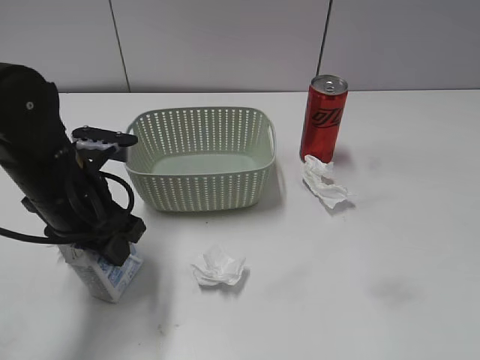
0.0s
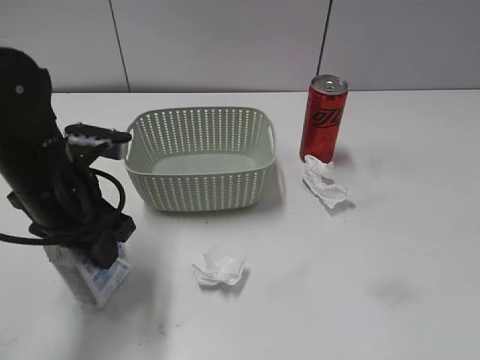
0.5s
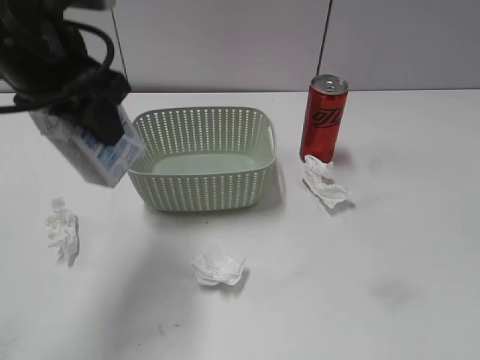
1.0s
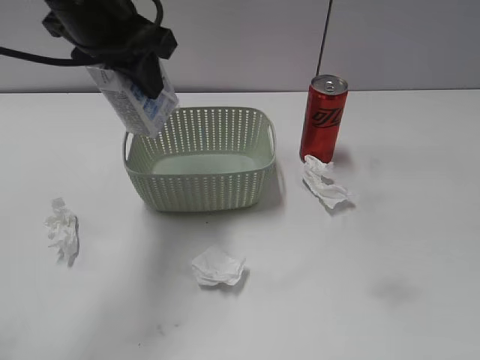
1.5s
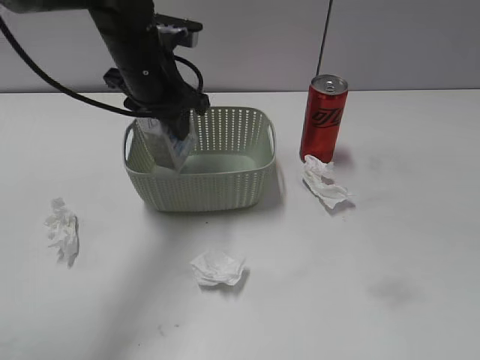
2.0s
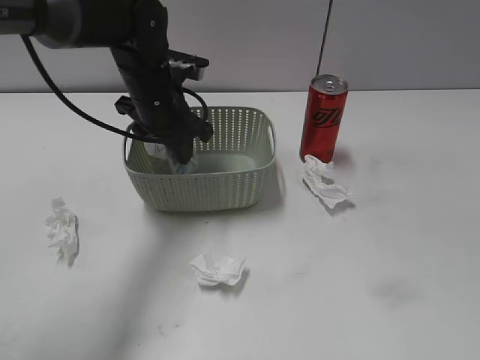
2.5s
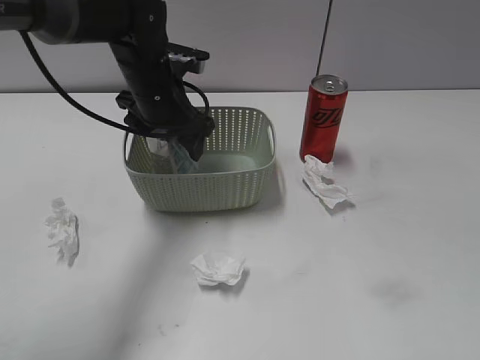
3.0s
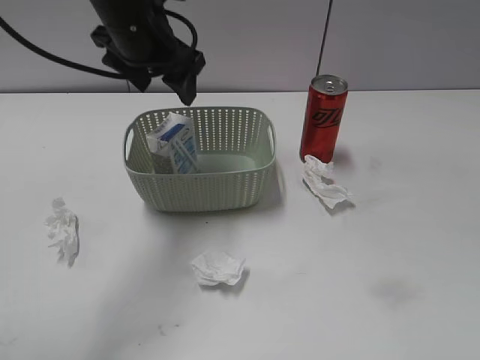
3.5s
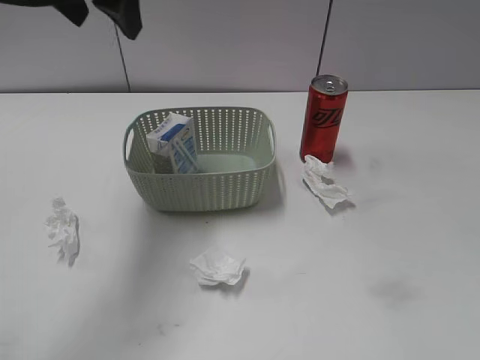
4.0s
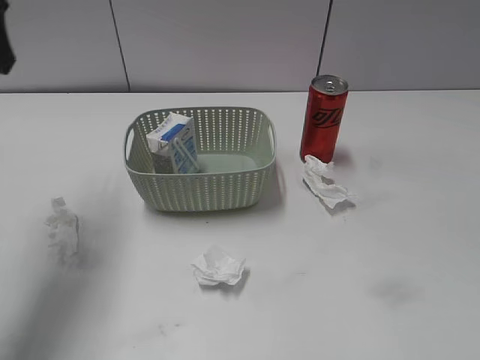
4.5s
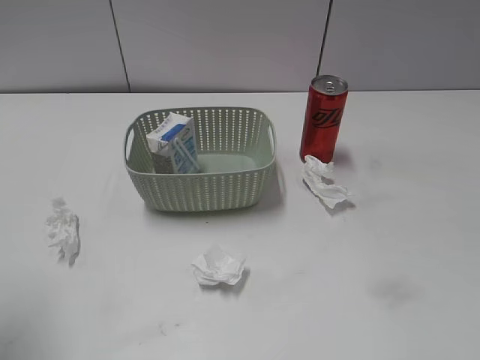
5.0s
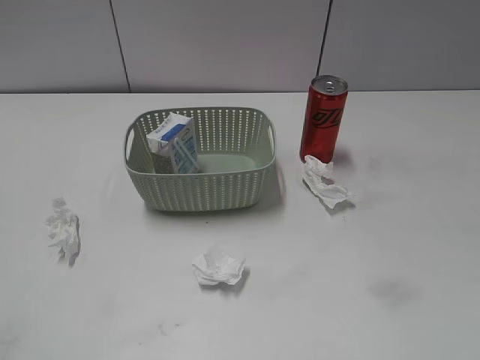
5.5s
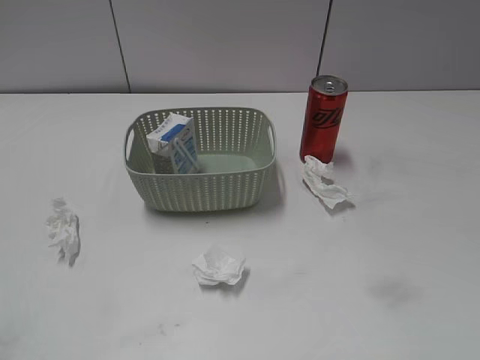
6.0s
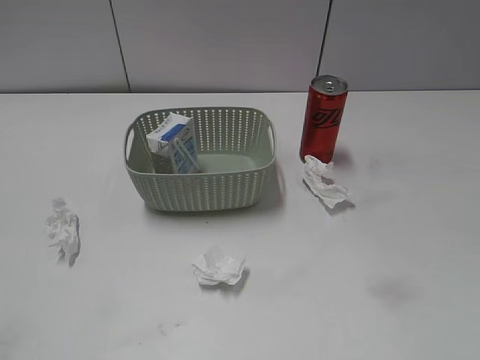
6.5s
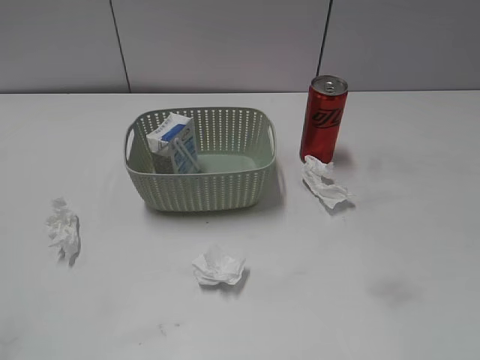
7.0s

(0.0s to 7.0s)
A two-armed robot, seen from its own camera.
Step, 0.5s - 3.5s: Place the milk in the basket with left gripper.
0.0s - 2.0s: The left gripper travels forward, to the right and upward by some 15 cm.
2.0s - 3.5s: The left gripper opens.
3.5s - 5.0s: The left gripper shifts approximately 30 cm backward and to the left.

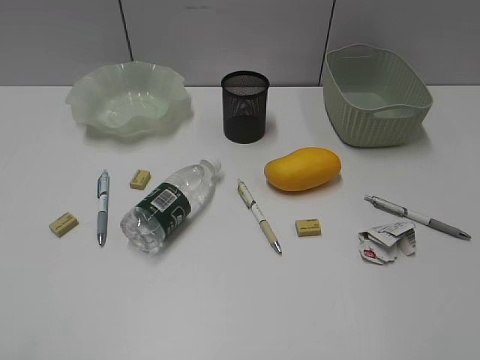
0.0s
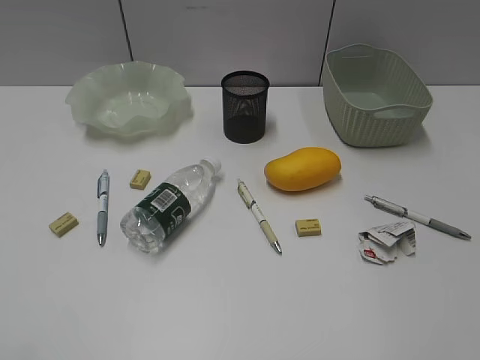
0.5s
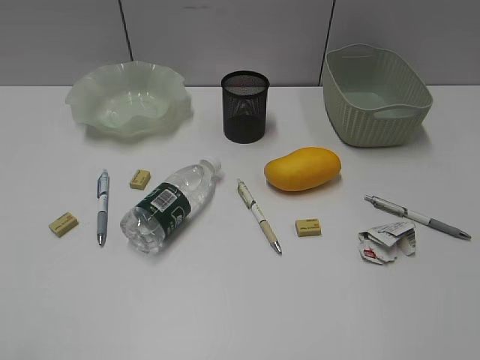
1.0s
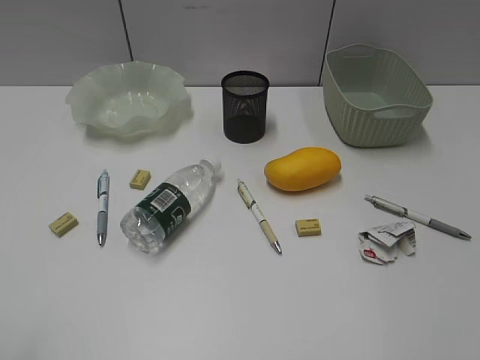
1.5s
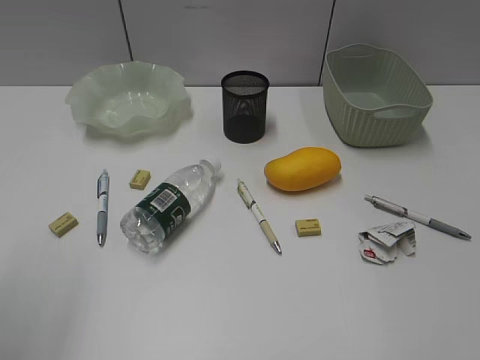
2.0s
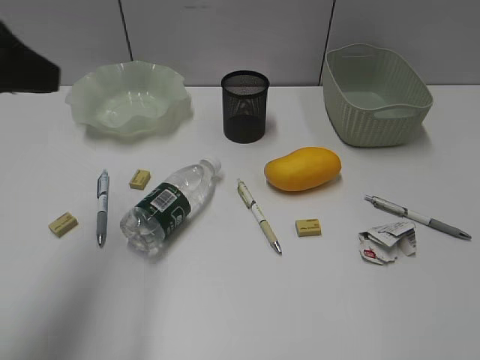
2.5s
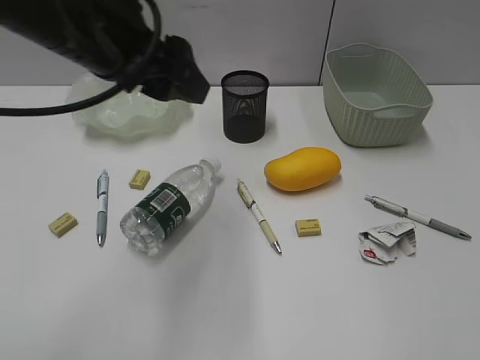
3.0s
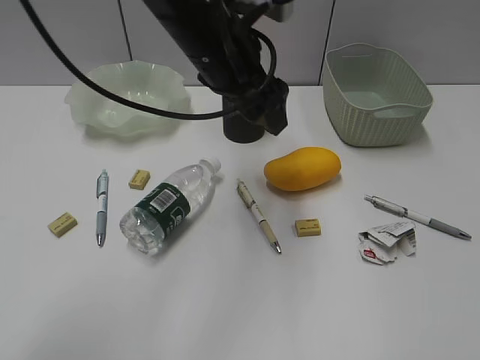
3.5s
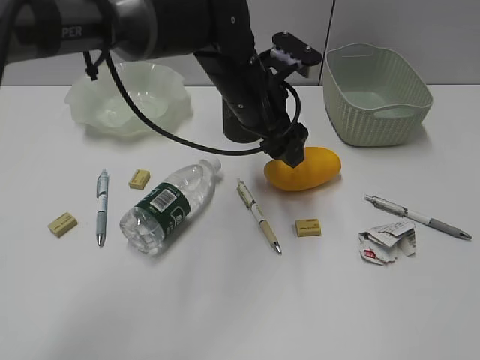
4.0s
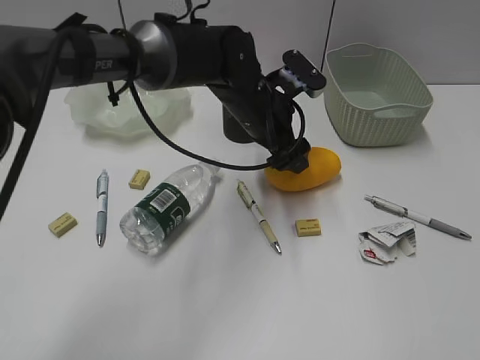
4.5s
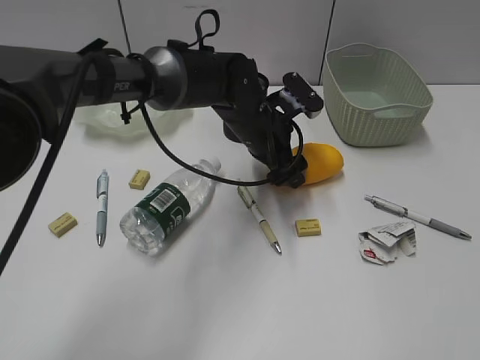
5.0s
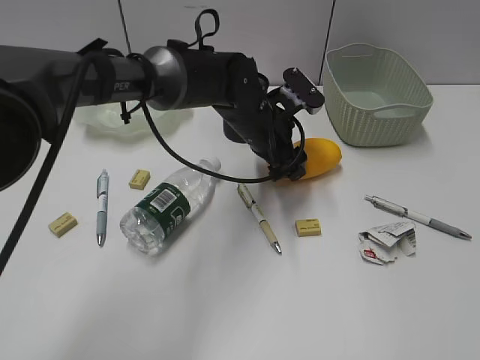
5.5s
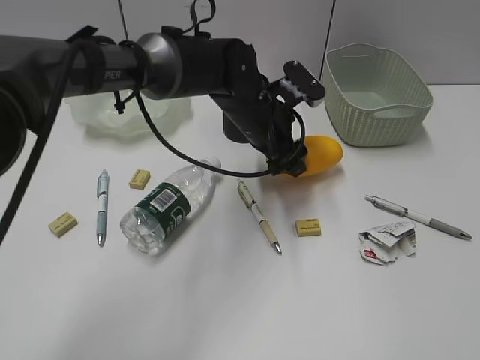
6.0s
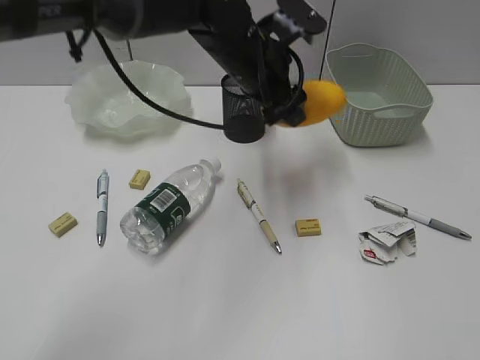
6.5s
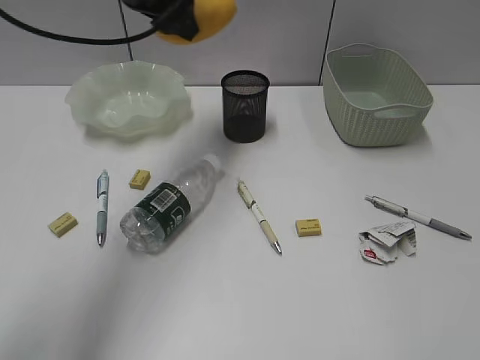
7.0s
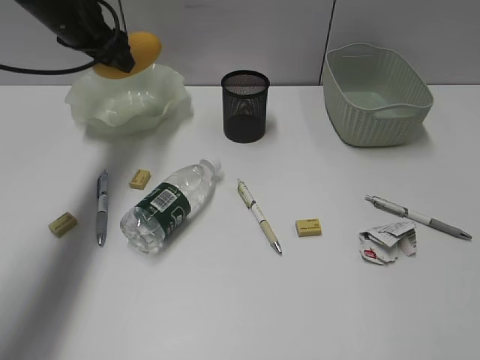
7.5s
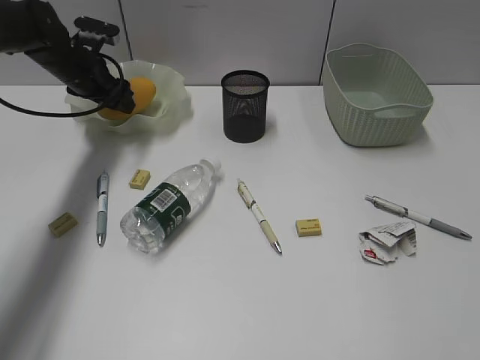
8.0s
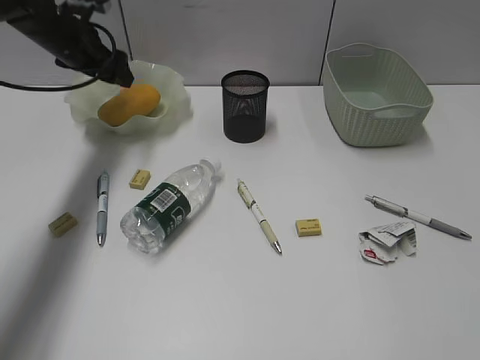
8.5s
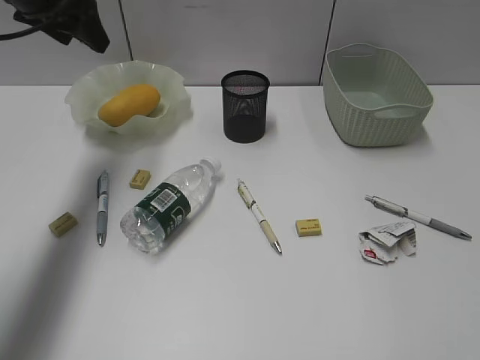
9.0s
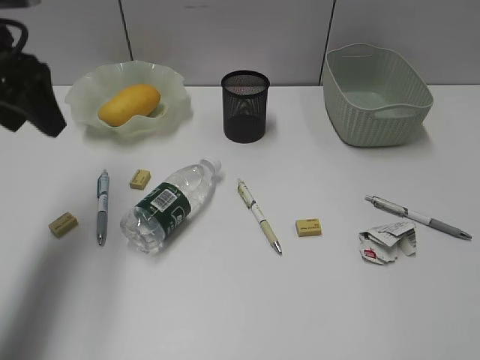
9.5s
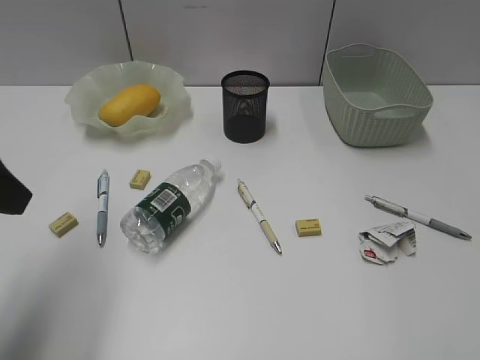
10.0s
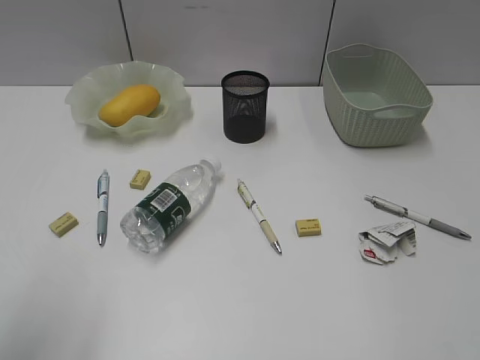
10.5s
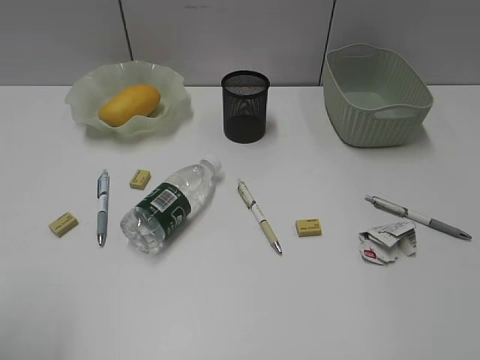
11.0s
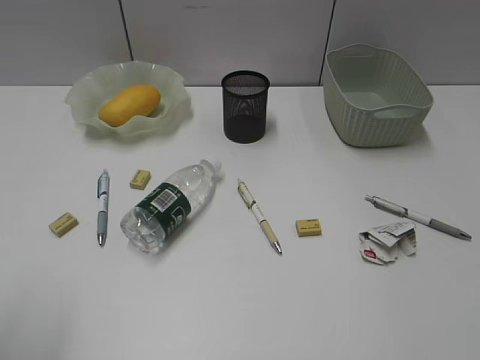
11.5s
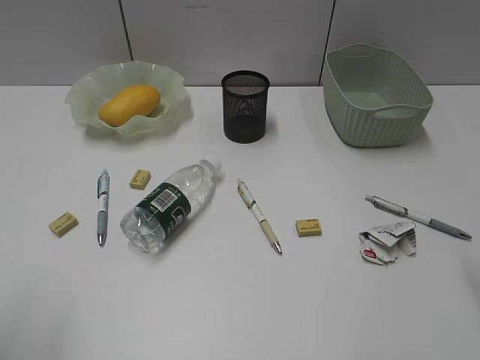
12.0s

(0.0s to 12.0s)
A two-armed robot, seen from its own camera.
Step, 2.5s - 5.5s: Grasp the mango with left gripper.
Step, 6.0s - 8.5s: Place the mango in the plate with left gripper.
2.0s - 4.0s: The left gripper travels to the right, forward and downward by approximately 40 cm.
6.0s - 8.0s: The left gripper is displaced to the left and forward by roughly 30 cm.
8.0s - 10.0s: The left gripper shifts roughly 35 cm backward and upward.
10.0s - 12.0s: The left gripper heads backward, covering some 15 cm.

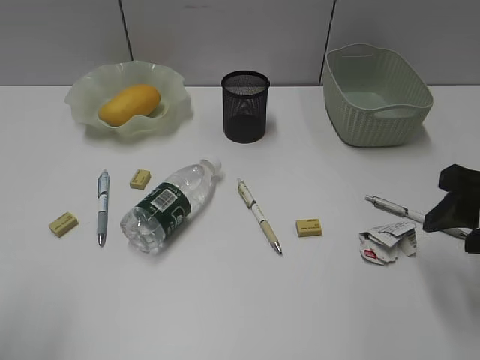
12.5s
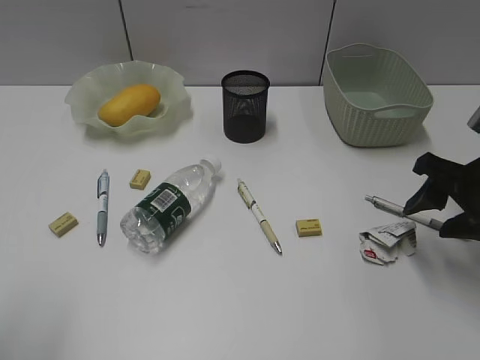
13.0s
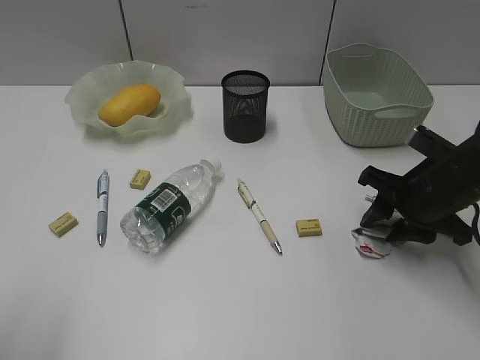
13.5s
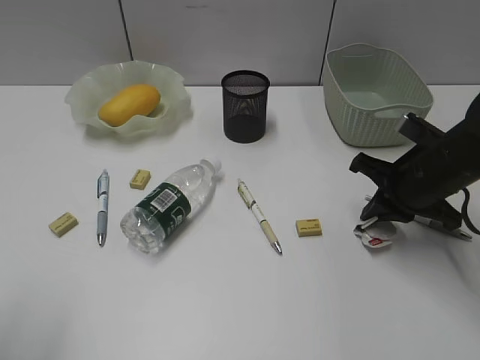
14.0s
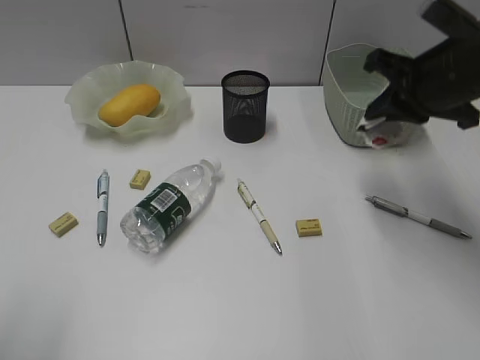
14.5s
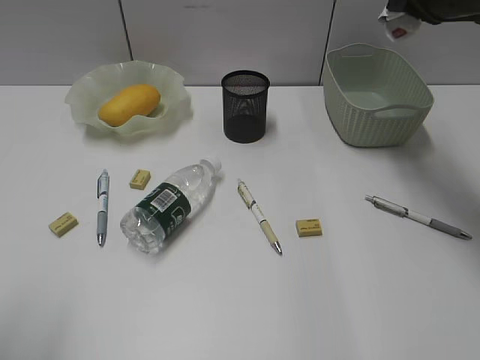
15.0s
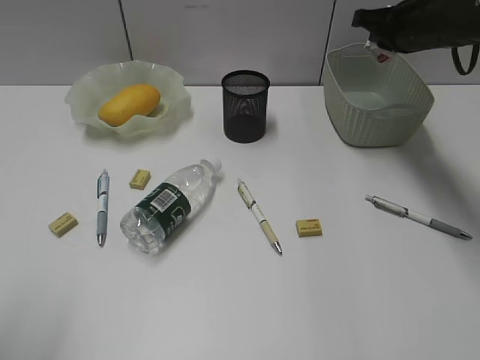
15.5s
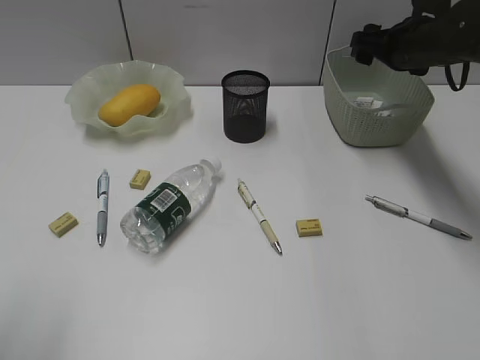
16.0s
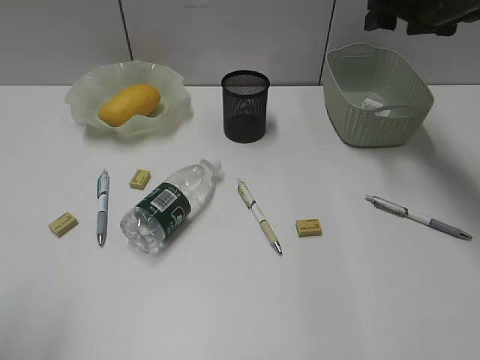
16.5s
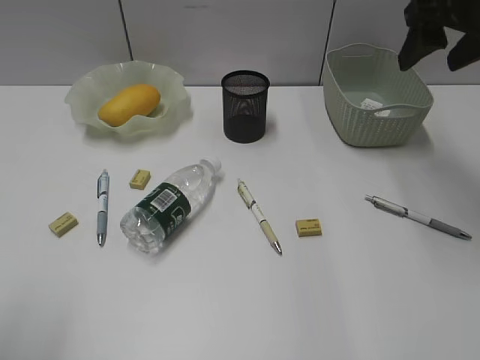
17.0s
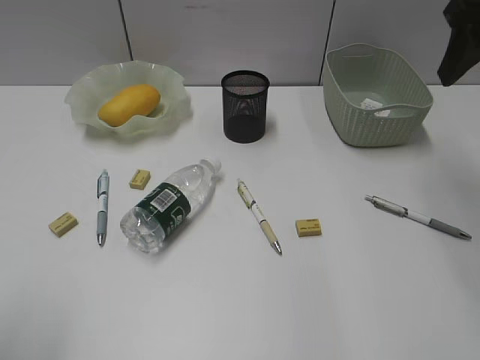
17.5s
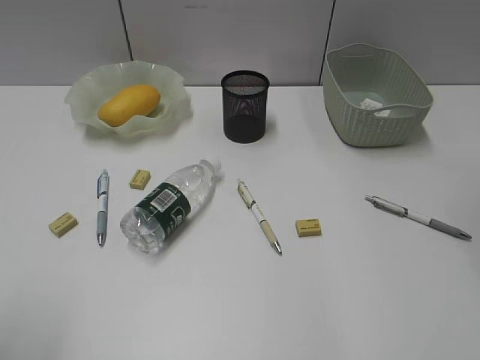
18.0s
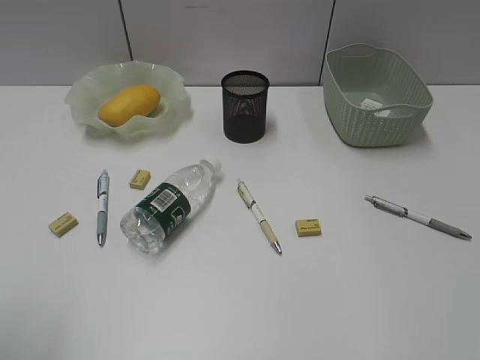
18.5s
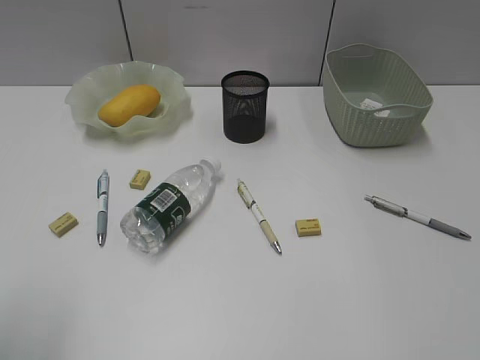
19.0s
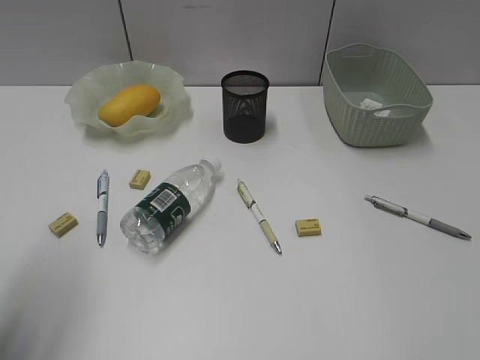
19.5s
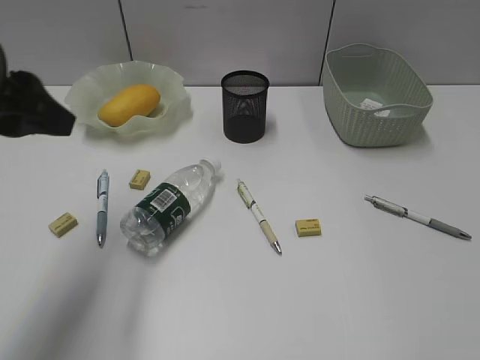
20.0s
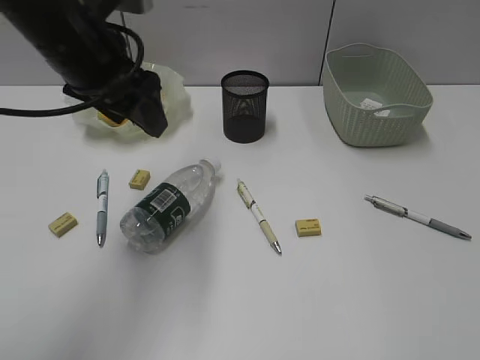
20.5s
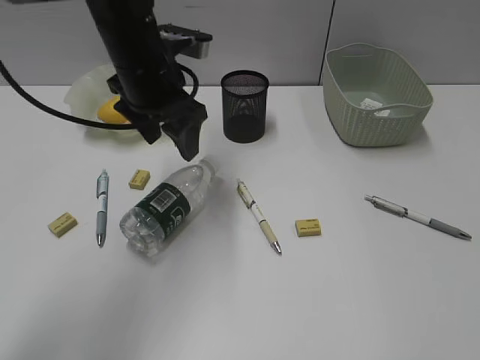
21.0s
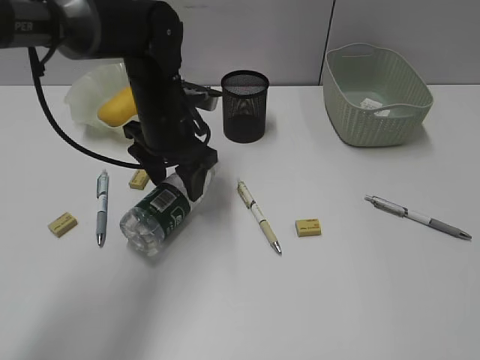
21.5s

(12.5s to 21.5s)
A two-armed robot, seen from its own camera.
Step, 14.0s - 16.0s: Place the waste paper in the basket with right gripper.
12.5s - 14.5s: The right gripper heads forward, to the left and upward, covering approximately 15 cm, and closes its fingers.
14.5s - 17.0s: The right gripper shifts about 5 cm upward, travels forward and back again, roughly 15 cm each way, and opens up.
17.0s - 19.5s: The left gripper moves forward, about 10 cm. Meanwhile the right gripper is displaced backward by approximately 35 cm.
19.5s - 21.5s: The left gripper is displaced forward, to the right and downward by some 30 cm.
